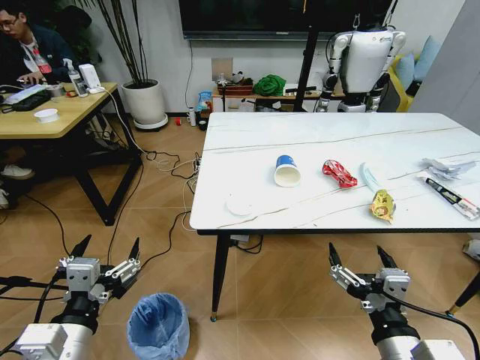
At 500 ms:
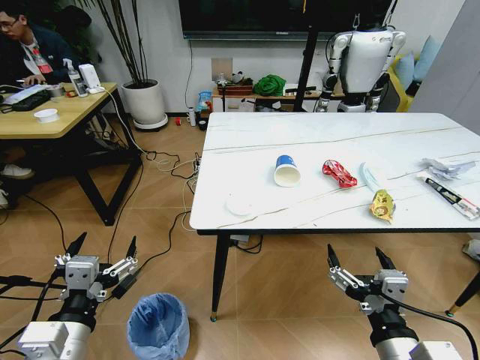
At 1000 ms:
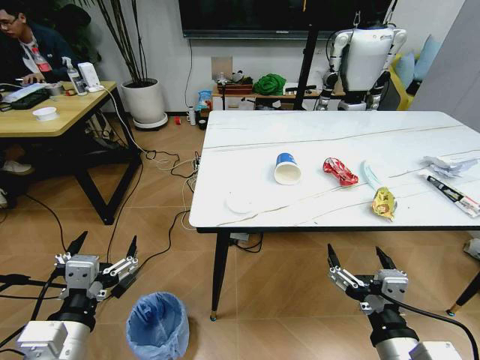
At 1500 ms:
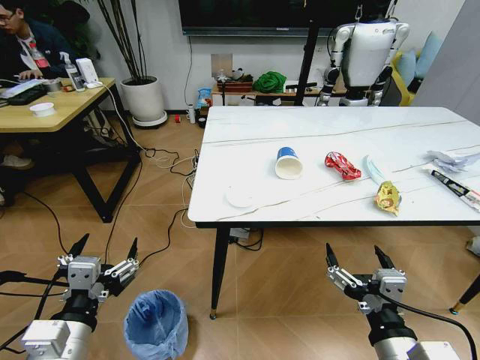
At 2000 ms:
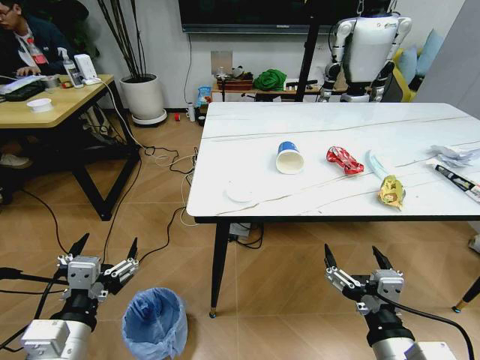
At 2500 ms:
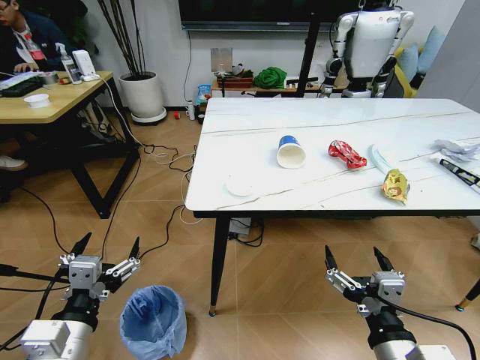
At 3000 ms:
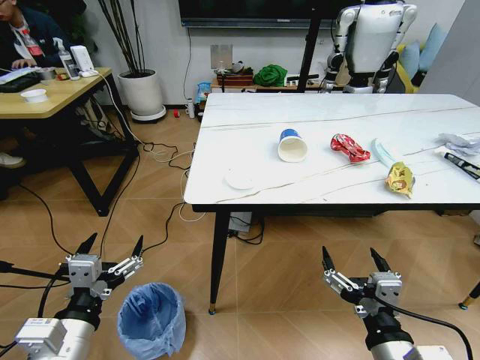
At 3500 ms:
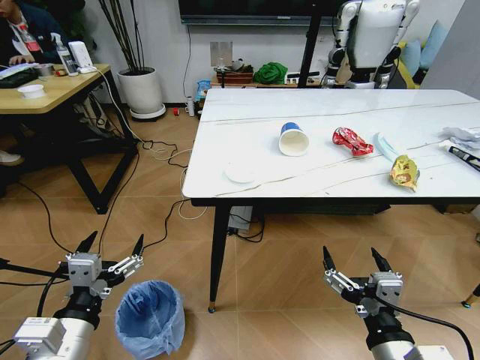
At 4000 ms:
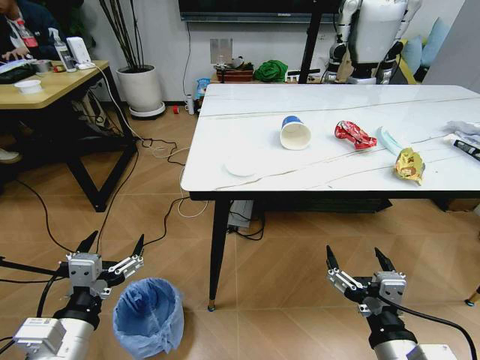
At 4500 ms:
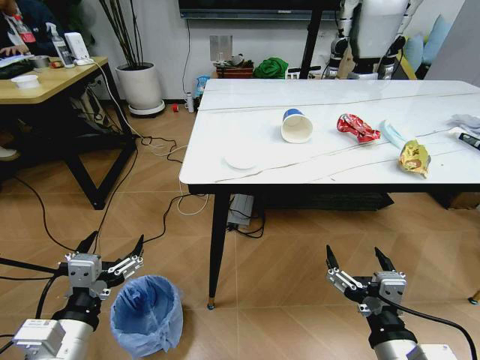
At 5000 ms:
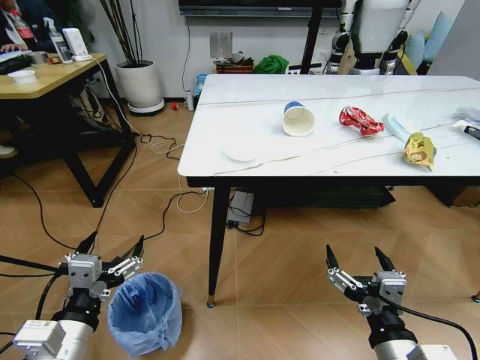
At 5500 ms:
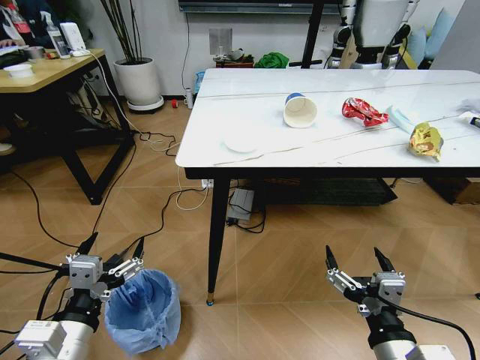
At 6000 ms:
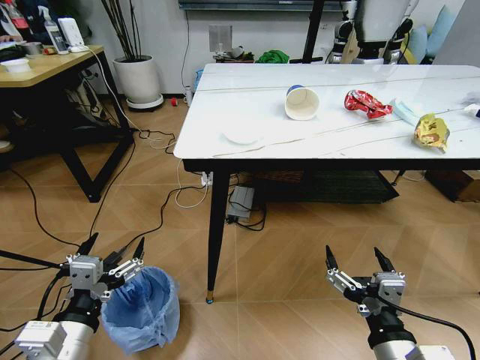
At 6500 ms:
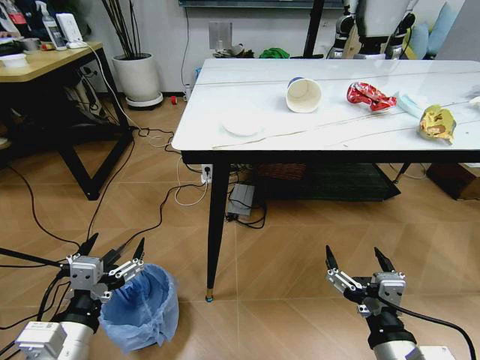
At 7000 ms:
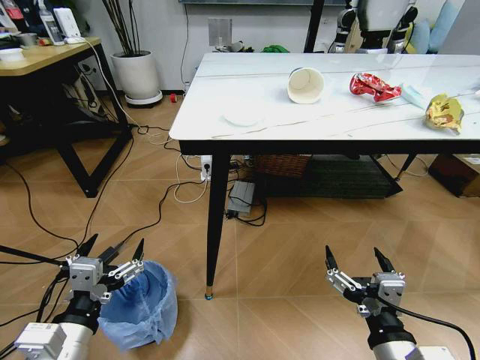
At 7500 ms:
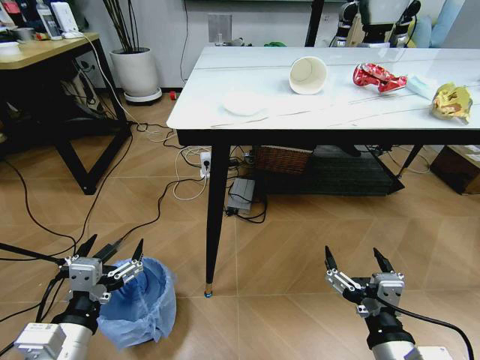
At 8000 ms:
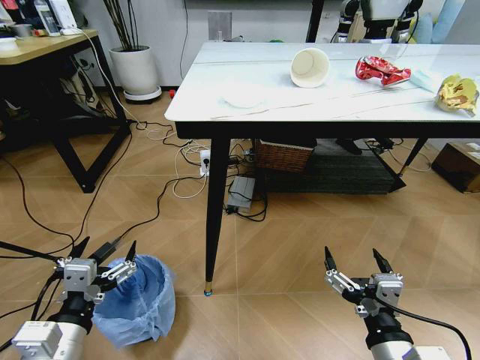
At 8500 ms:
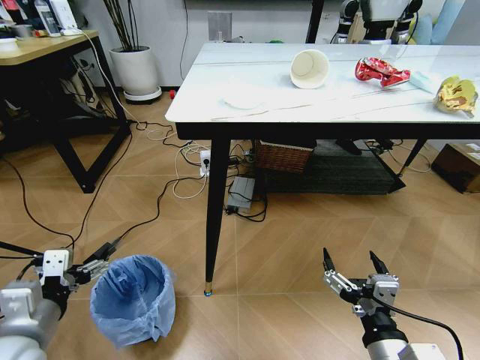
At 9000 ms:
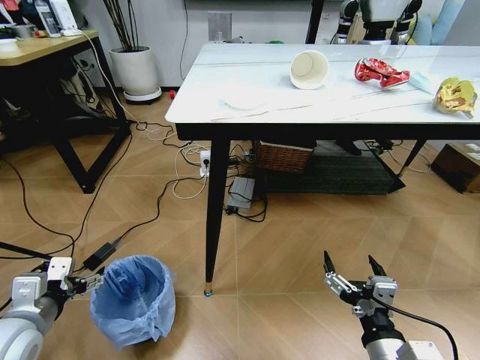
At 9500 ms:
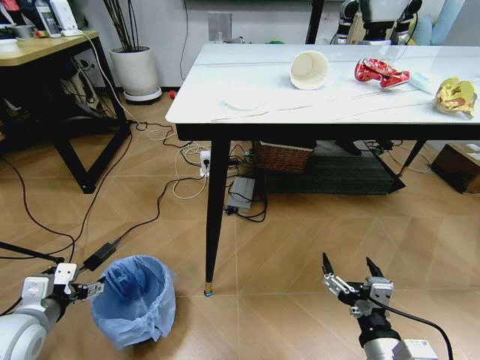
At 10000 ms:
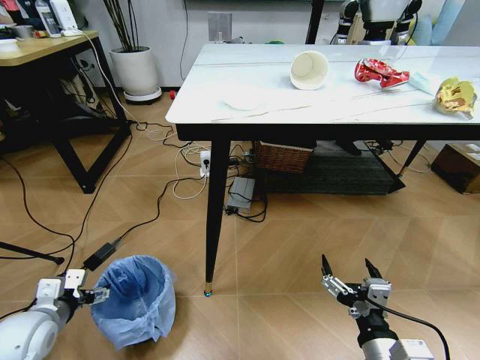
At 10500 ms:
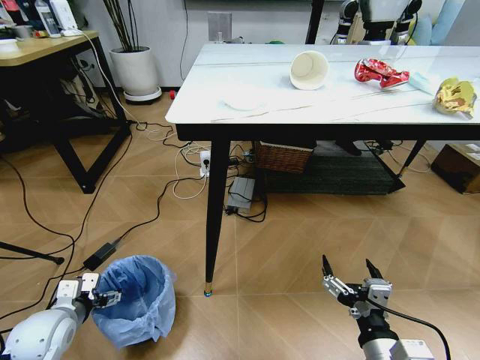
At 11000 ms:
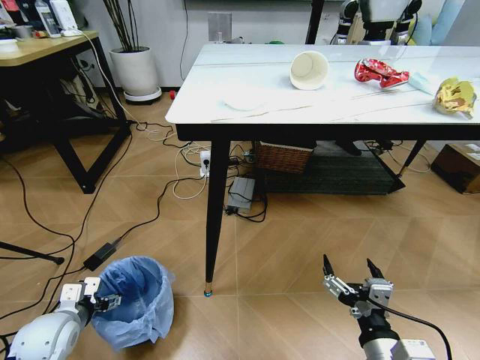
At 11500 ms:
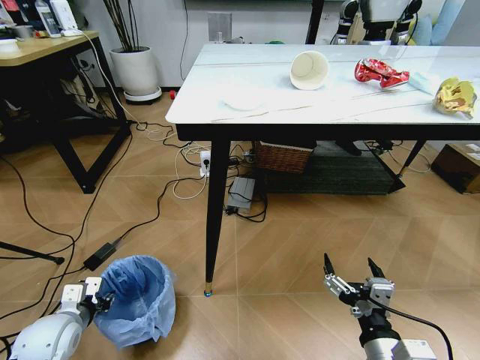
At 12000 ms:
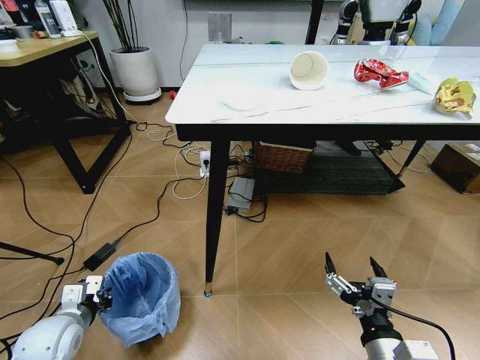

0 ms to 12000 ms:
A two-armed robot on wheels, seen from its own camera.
Task of the whole recording: Pick up the trash bin and place the trash from the table into it.
8000 ms to 10000 ms: The left gripper moves to the left, forward and downward, roughly 20 cm.
10000 ms to 12000 ms: The left gripper closes its fingers.

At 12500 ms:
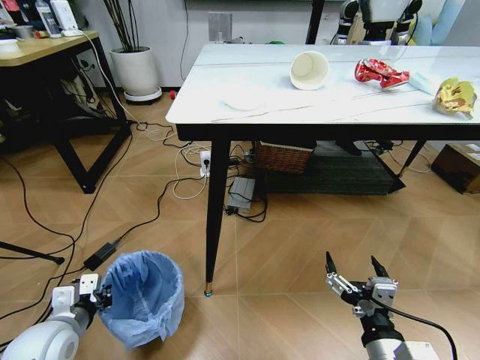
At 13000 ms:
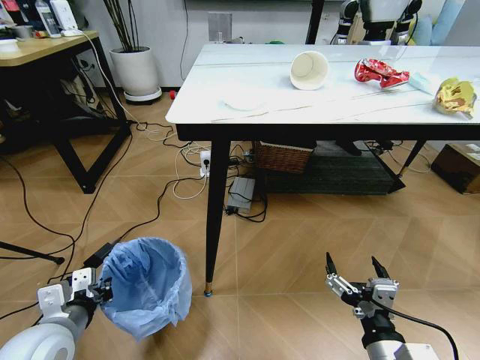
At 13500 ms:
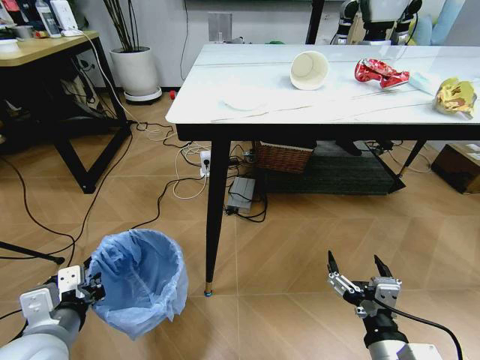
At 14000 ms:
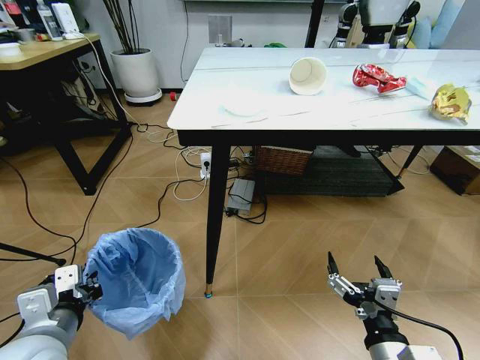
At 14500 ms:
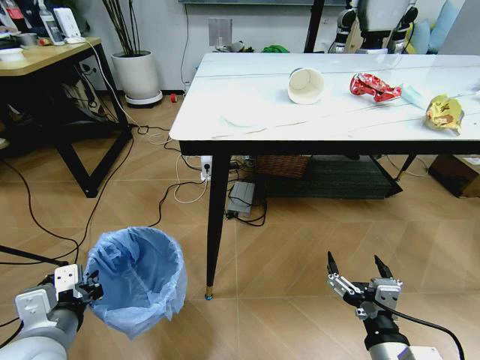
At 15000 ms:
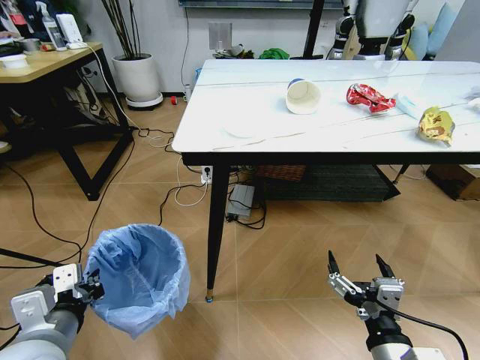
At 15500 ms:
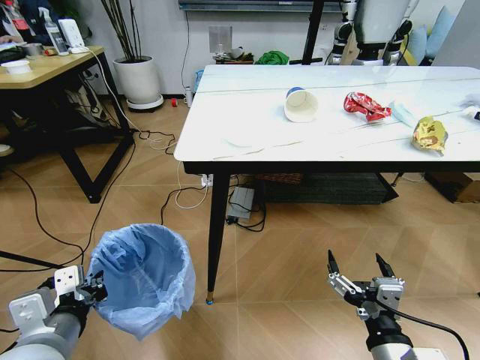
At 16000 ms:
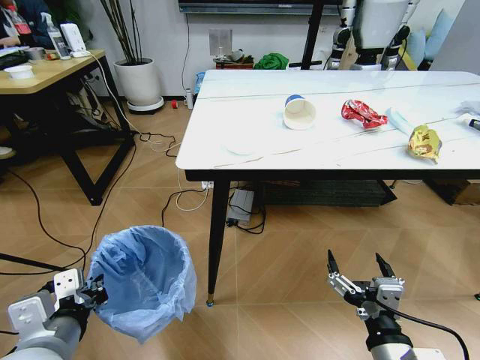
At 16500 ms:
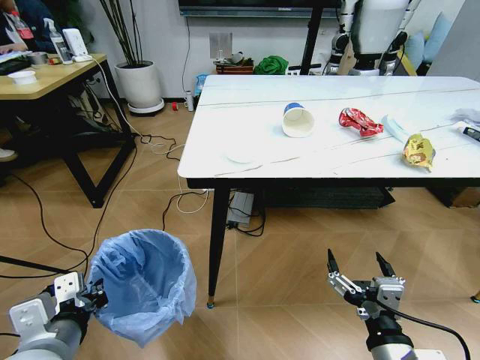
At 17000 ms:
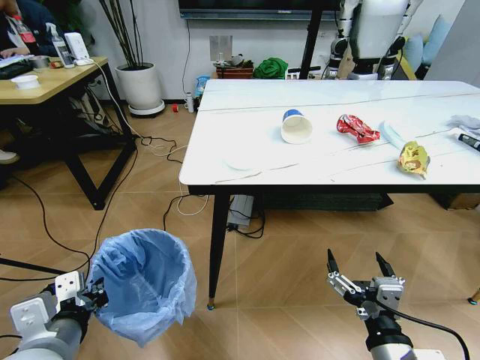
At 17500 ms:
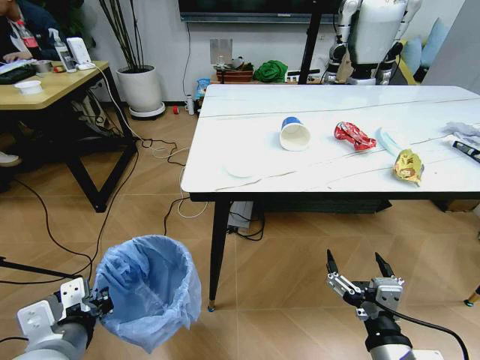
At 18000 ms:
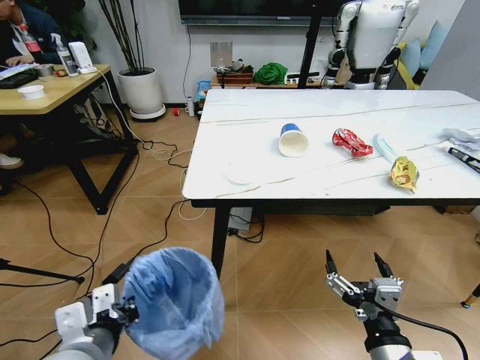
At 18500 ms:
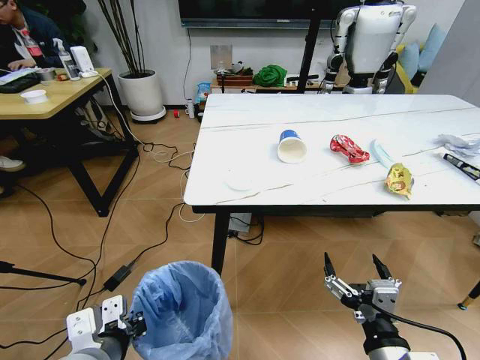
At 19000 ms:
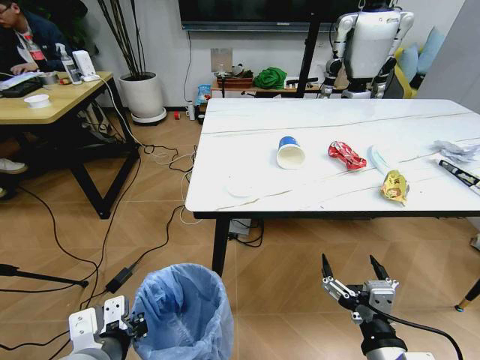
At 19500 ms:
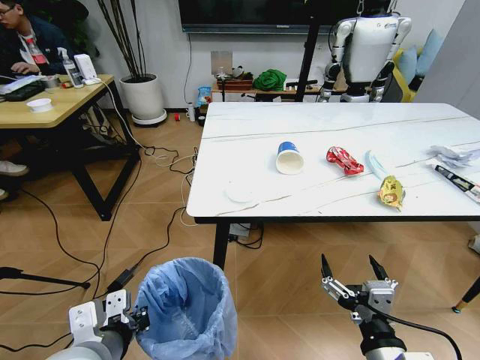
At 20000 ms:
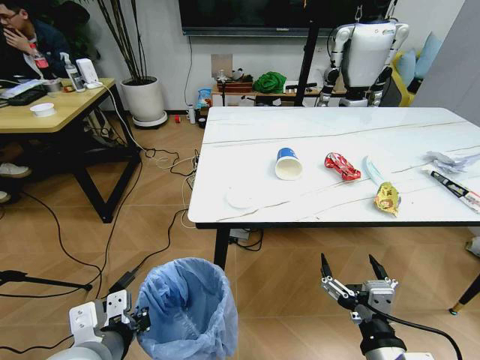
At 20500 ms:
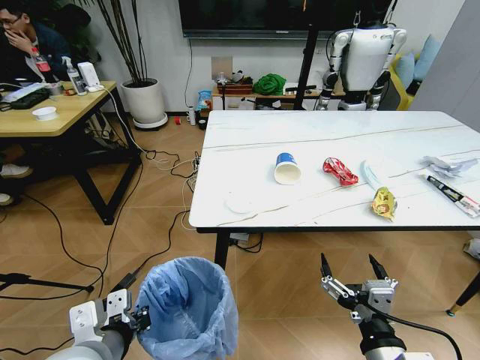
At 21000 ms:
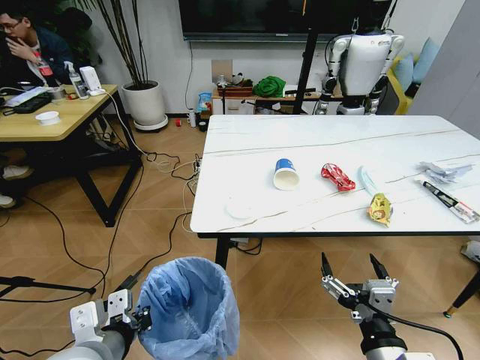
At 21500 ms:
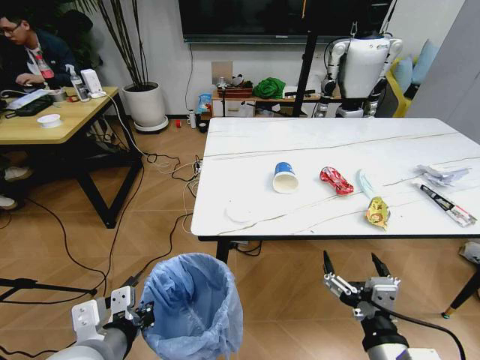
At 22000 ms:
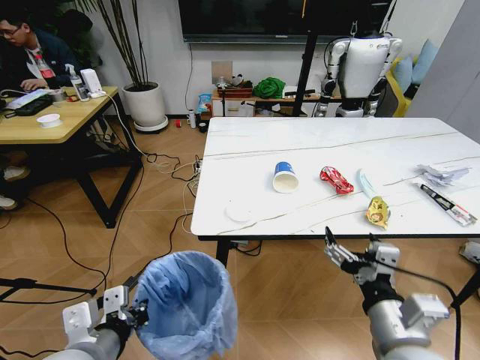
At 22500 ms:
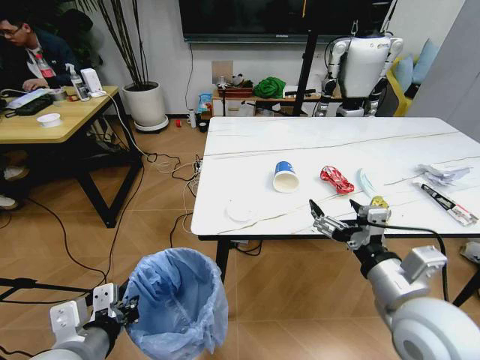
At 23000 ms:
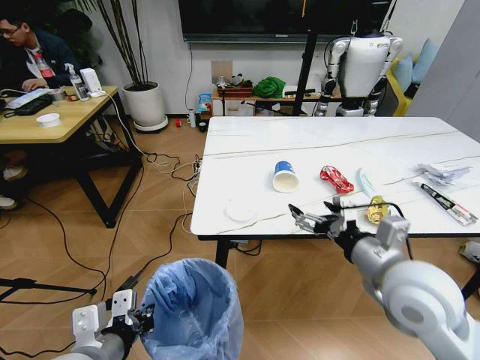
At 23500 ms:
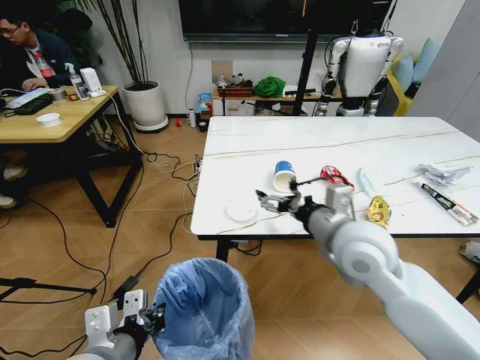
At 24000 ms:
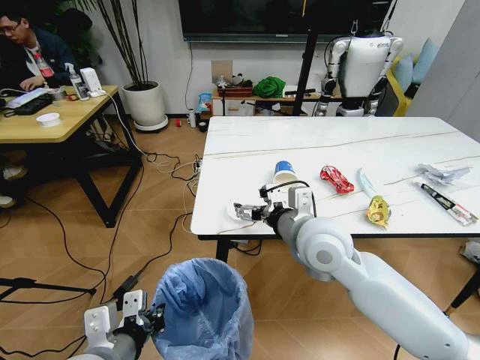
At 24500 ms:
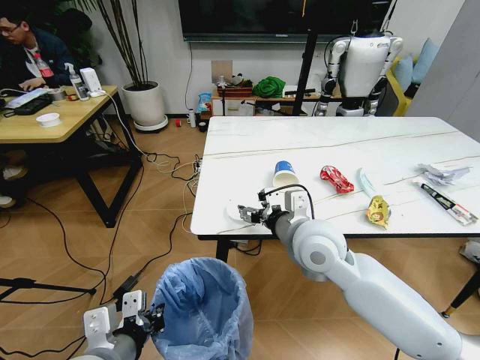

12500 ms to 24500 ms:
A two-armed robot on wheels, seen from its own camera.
Task of the whole recording: Pick up the trash bin and place the trash from the table into it.
12500 ms to 14500 ms: The left gripper shifts some 10 cm upward and to the right.
16500 ms to 18500 ms: The left gripper moves approximately 5 cm.
20500 ms to 22500 ms: The right gripper travels forward and upward by some 15 cm.
22500 ms to 24500 ms: The right gripper shifts some 20 cm forward and to the left.

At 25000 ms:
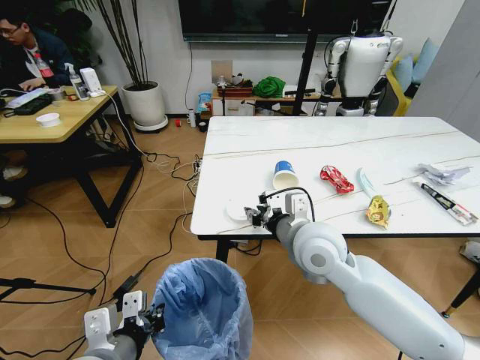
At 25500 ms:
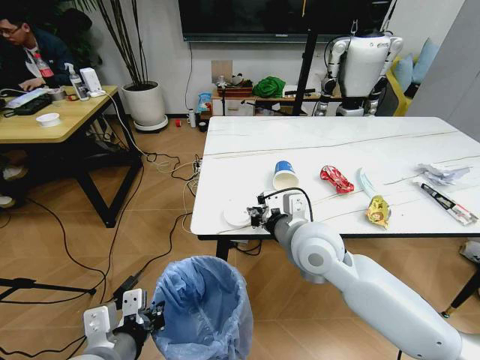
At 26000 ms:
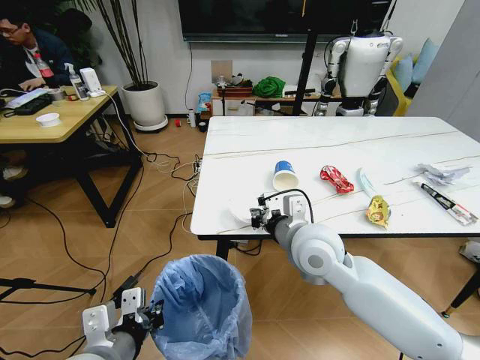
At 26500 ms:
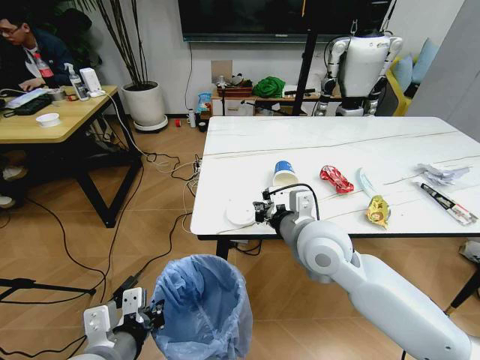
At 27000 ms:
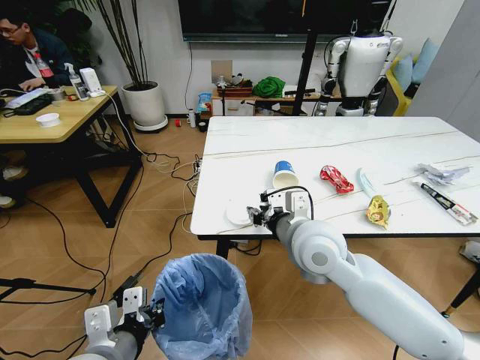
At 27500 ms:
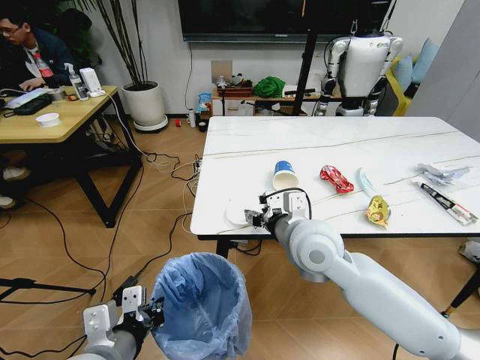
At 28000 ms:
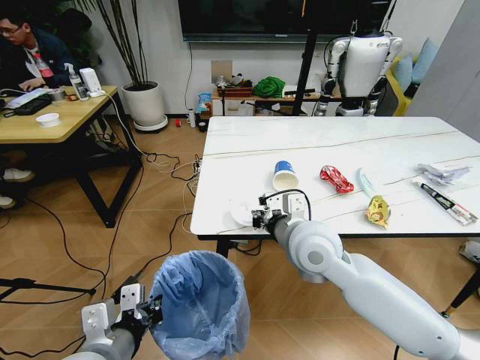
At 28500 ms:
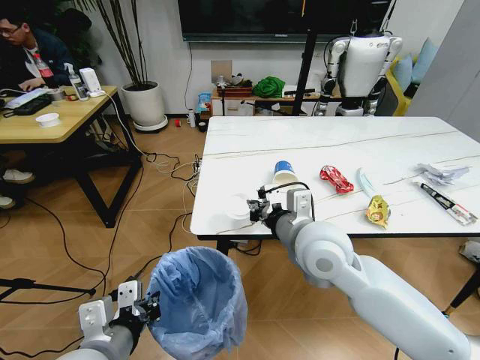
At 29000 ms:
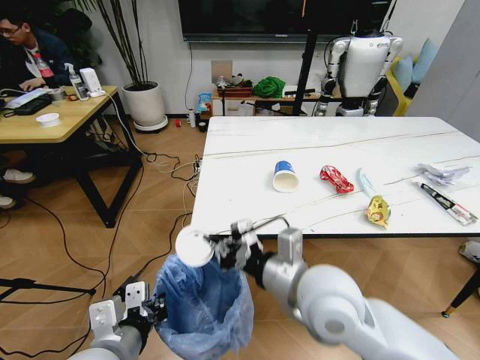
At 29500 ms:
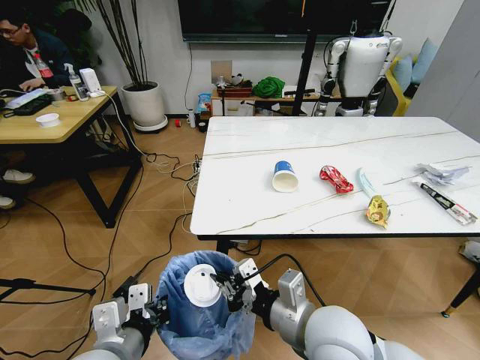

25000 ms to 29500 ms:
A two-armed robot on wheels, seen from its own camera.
Task of the whole recording: Pick up the trash bin and place the trash from the table into it.
25000 ms to 27000 ms: The right gripper closes, then reopens.
27000 ms to 29500 ms: The right gripper is displaced backward by approximately 15 cm, and closes up.
